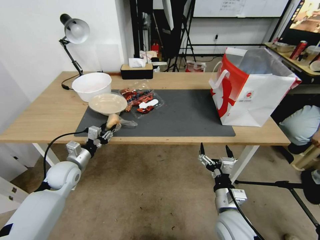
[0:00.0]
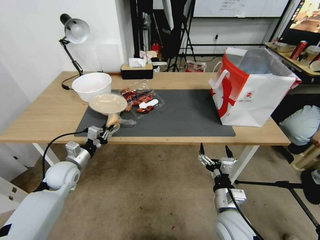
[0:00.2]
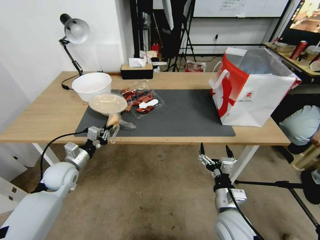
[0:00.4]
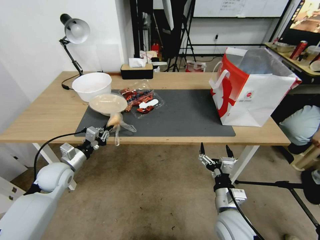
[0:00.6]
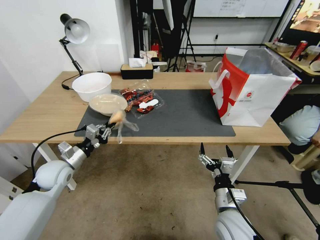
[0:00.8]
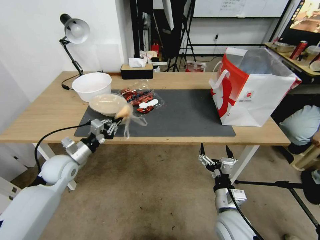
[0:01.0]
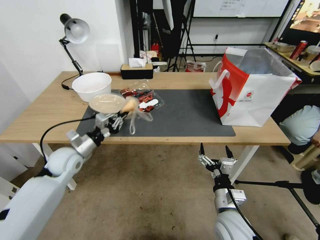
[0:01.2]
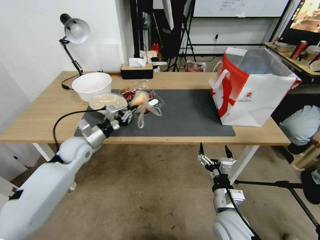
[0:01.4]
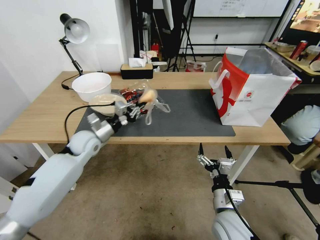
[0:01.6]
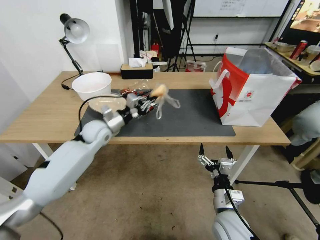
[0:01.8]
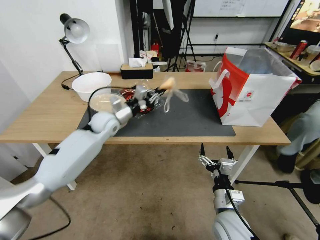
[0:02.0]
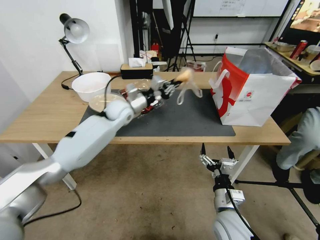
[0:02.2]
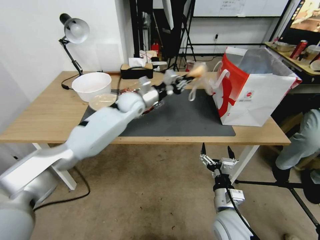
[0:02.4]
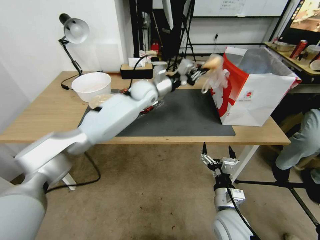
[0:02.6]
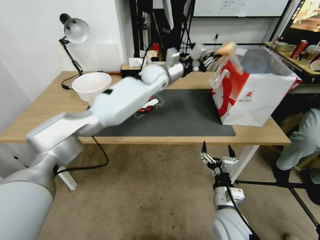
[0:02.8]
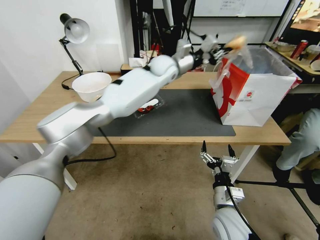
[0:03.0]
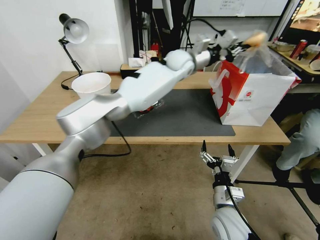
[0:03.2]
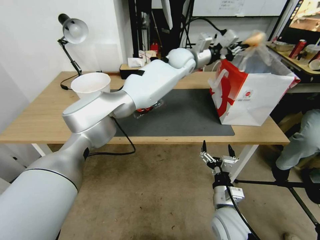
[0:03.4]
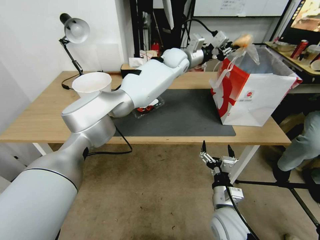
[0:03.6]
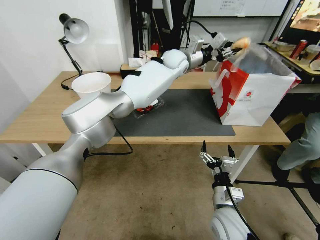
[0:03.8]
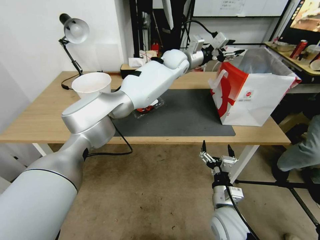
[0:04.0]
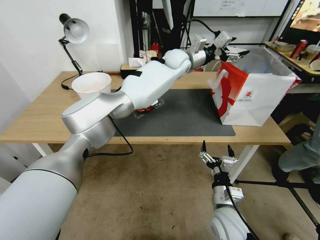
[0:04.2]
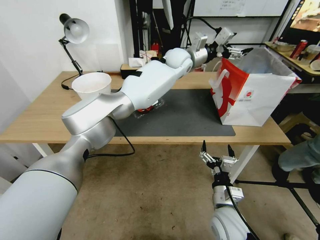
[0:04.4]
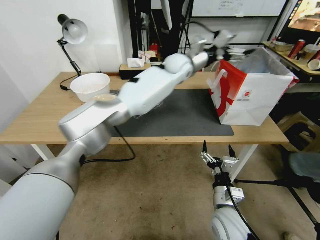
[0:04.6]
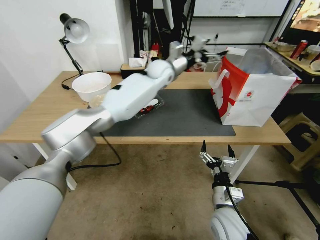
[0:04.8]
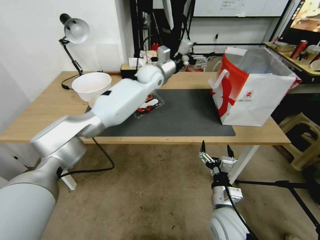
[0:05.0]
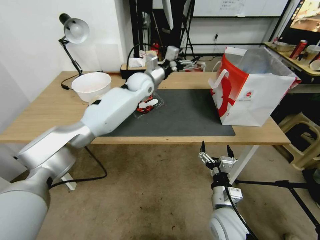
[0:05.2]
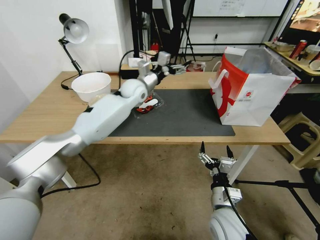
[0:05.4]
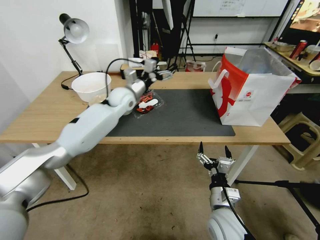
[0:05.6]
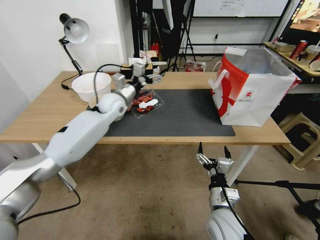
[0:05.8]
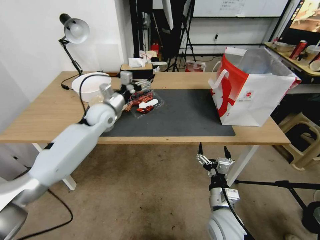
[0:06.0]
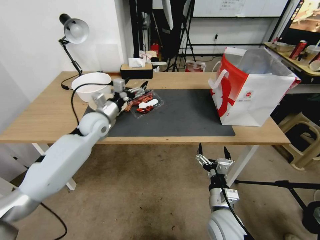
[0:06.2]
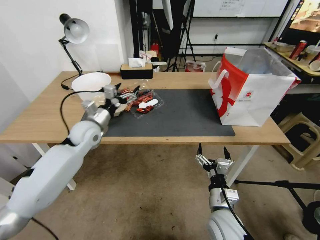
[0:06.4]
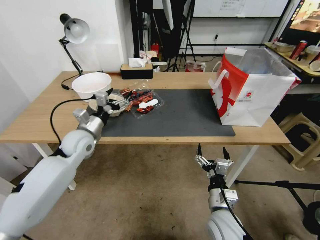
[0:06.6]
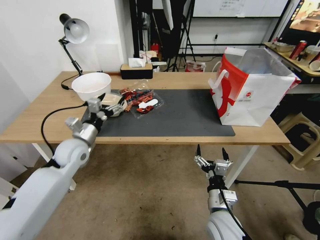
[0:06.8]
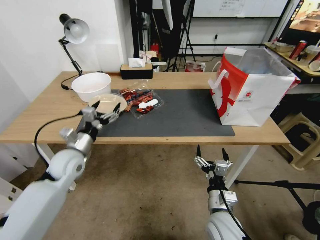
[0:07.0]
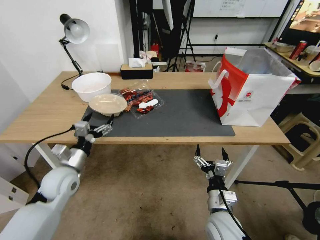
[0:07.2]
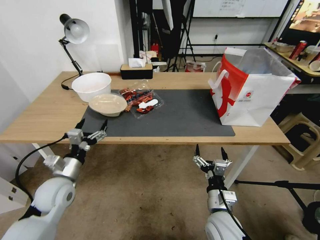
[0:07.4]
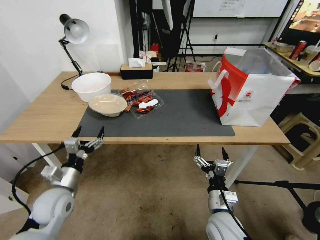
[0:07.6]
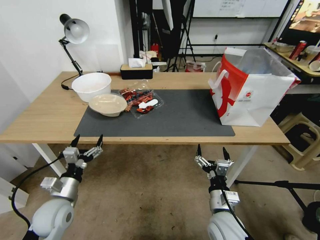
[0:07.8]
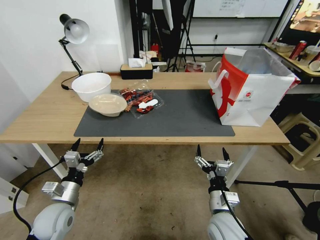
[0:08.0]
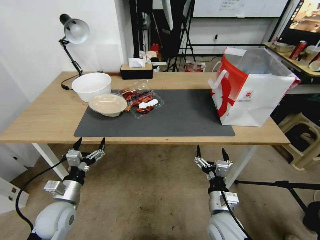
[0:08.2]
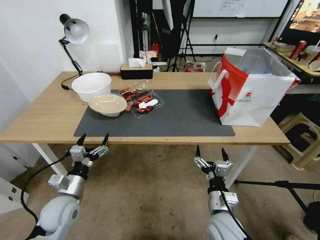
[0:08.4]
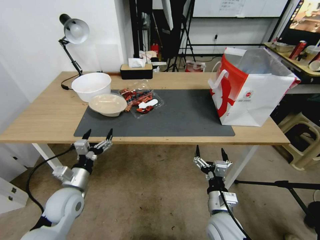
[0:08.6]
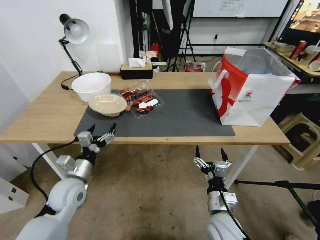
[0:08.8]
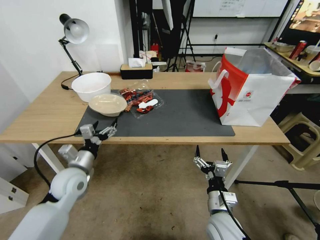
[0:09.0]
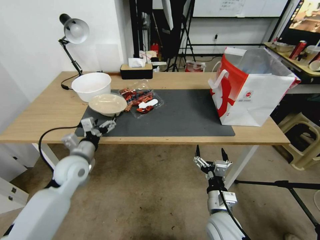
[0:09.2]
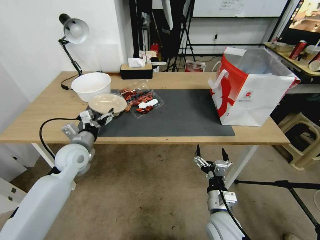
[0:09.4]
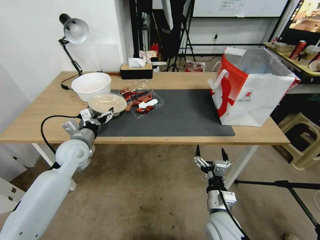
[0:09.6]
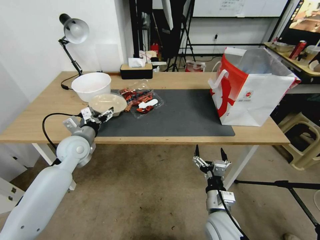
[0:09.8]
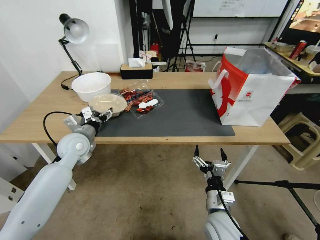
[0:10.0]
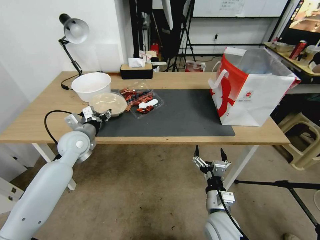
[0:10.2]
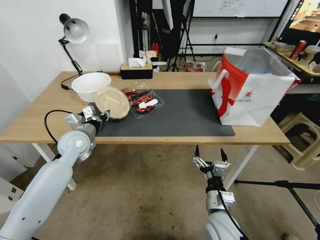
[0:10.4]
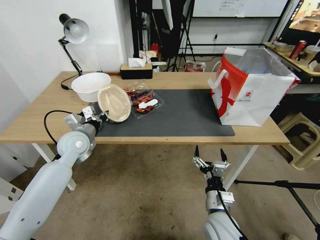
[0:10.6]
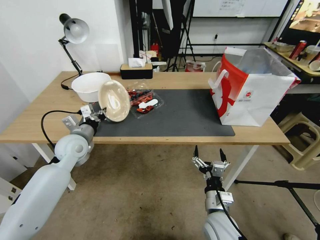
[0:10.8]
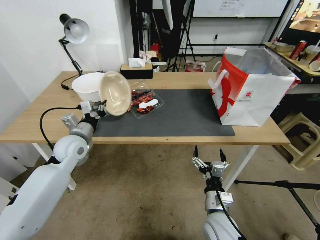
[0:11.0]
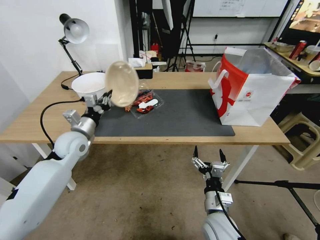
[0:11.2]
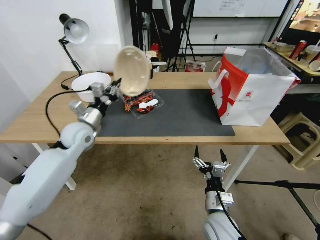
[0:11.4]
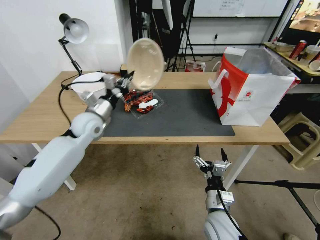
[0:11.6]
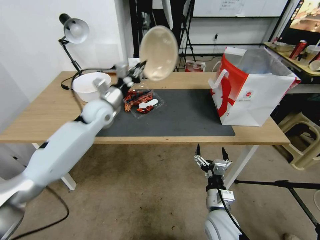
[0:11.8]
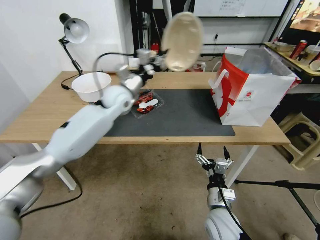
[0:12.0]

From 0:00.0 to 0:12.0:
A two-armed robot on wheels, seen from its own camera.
From 0:00.0 to 0:01.6: The left gripper goes roughly 15 cm forward, upward and to the right, and closes.
From 0:01.6 to 0:03.0: The left gripper travels to the right, upward and forward by some 40 cm.
From 0:03.0 to 0:04.4: The left gripper shifts some 5 cm to the right, and opens.
From 0:04.4 to 0:06.0: The left gripper shifts roughly 35 cm to the left, downward and backward.
From 0:06.0 to 0:07.6: The left gripper heads backward and downward, covering roughly 30 cm.
From 0:07.6 to 0:09.0: The left gripper goes approximately 5 cm forward.
From 0:09.0 to 0:10.4: The left gripper is displaced forward and upward by about 10 cm, and closes.
From 0:10.4 to 0:12.0: The left gripper shifts about 20 cm to the right, forward and upward.

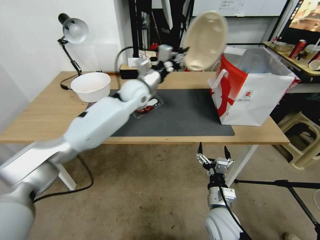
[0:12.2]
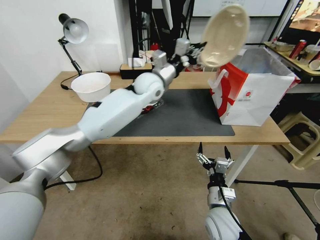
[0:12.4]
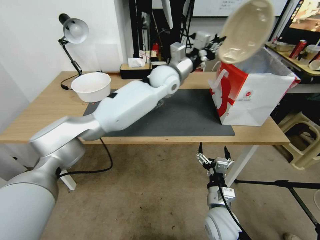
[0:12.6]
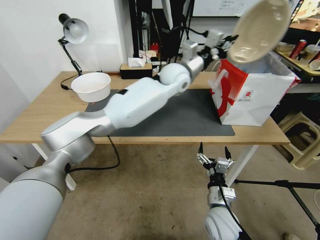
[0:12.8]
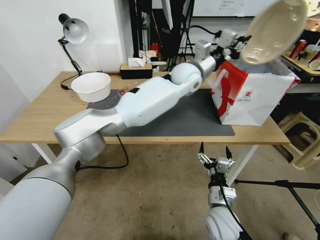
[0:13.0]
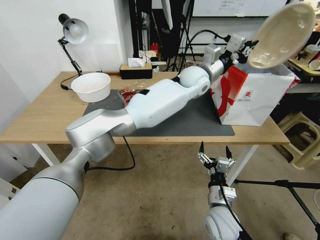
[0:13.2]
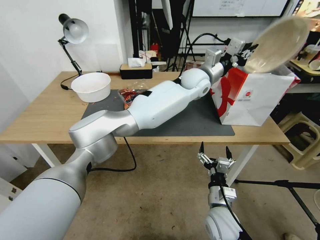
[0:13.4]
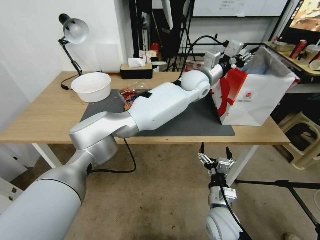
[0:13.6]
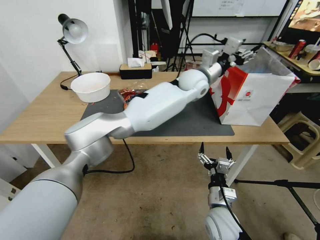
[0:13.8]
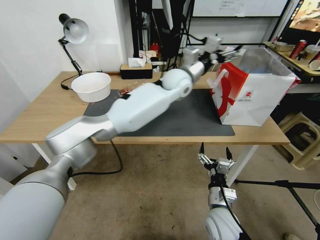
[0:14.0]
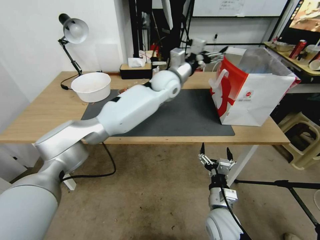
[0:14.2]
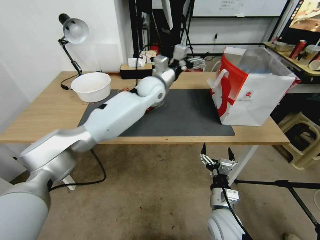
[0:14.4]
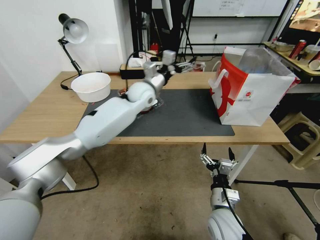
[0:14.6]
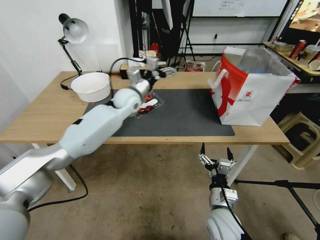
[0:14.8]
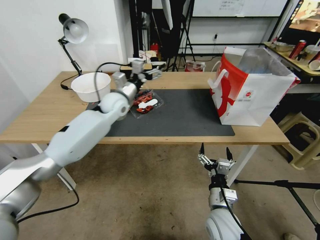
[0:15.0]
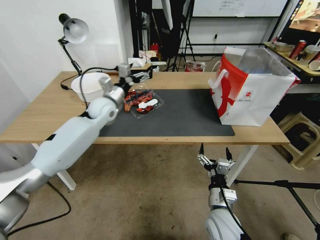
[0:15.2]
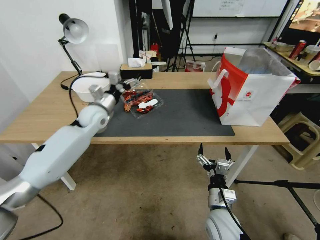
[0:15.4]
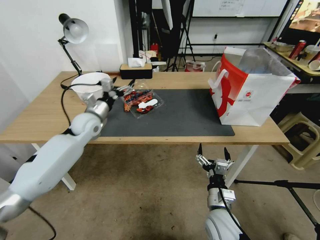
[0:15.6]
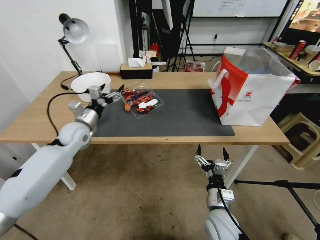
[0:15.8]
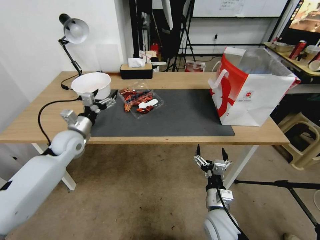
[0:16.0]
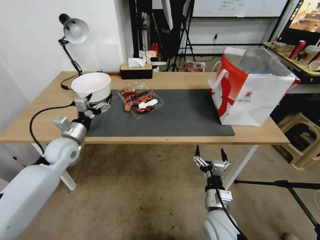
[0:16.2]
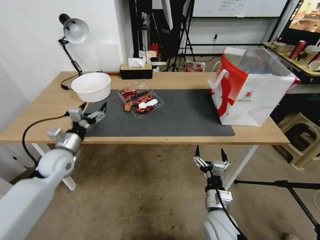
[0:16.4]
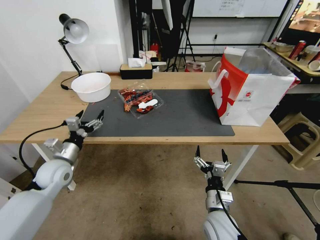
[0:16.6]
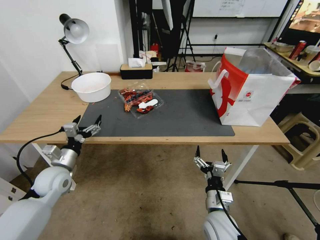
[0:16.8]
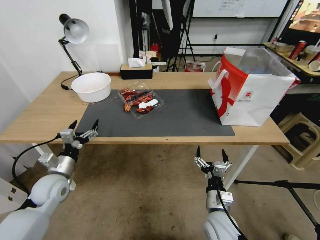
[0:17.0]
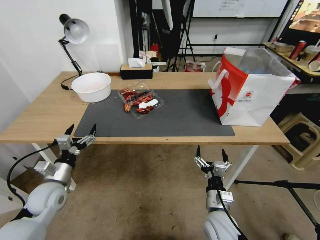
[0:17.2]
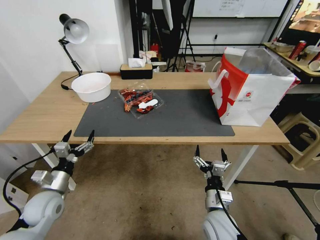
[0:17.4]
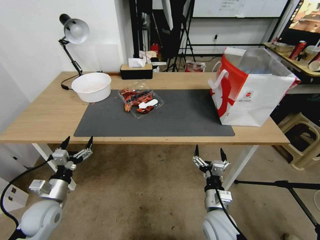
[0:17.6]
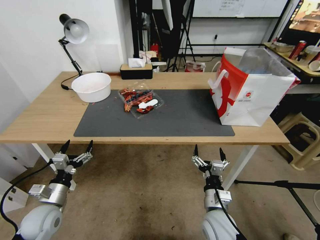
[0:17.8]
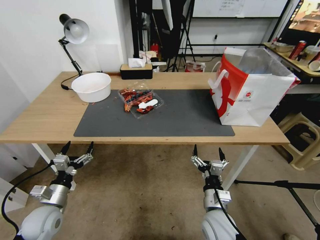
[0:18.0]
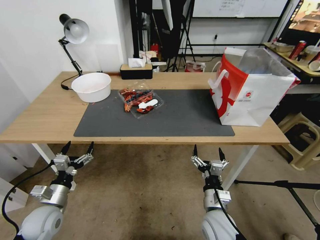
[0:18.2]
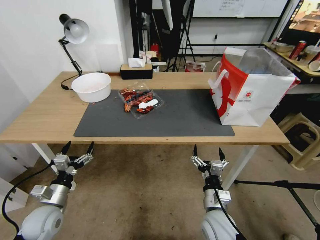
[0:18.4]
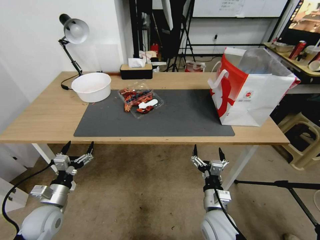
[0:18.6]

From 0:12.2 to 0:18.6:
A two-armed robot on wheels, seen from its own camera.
From 0:12.2 to 0:13.8: The left gripper travels to the right by about 20 cm, and opens its fingers.
From 0:13.8 to 0:15.4: The left gripper travels to the left by roughly 35 cm, and opens its fingers.
From 0:15.4 to 0:17.0: The left gripper moves backward, downward and to the left, some 25 cm.
From 0:17.0 to 0:18.6: The left gripper heads backward and downward, covering roughly 10 cm.
